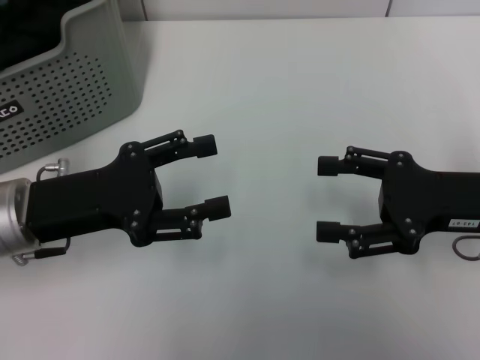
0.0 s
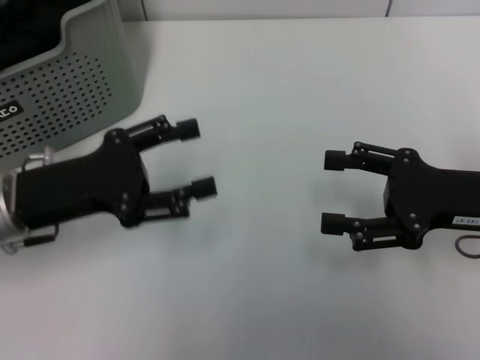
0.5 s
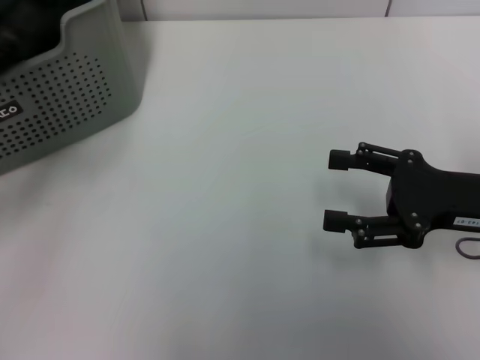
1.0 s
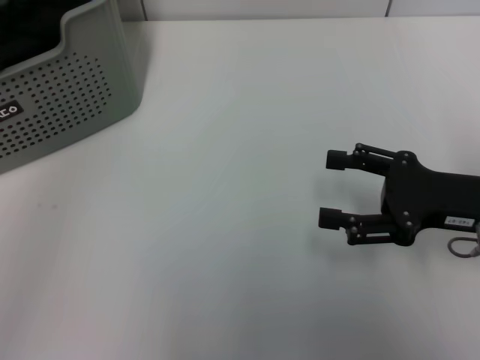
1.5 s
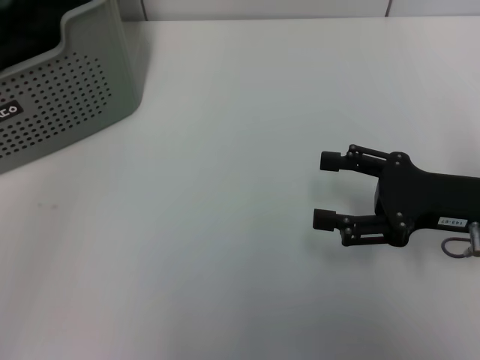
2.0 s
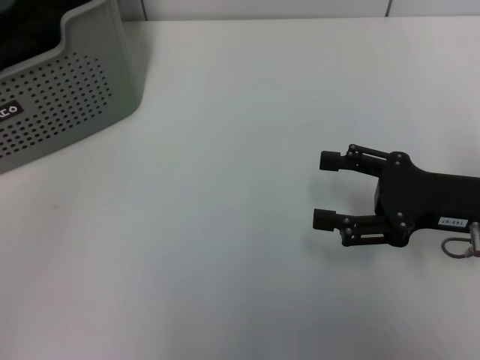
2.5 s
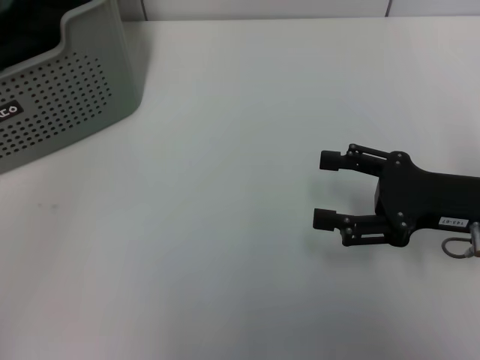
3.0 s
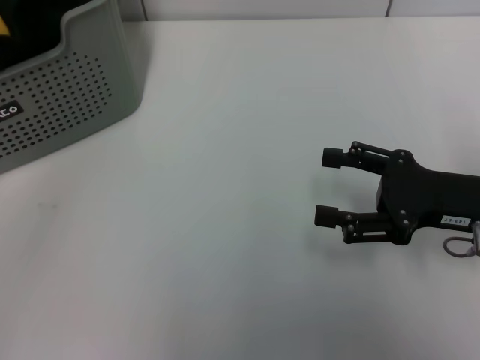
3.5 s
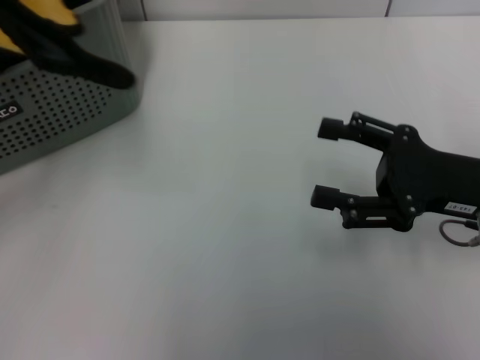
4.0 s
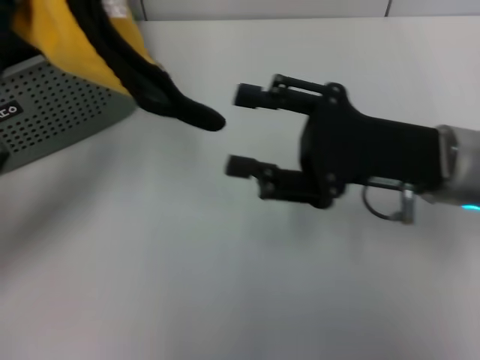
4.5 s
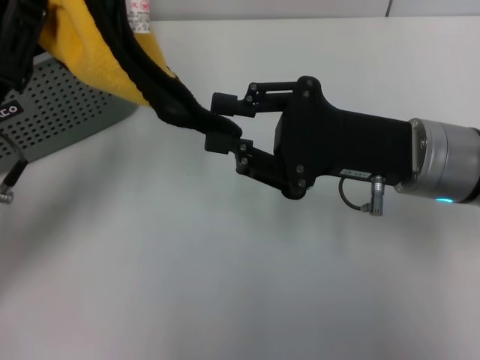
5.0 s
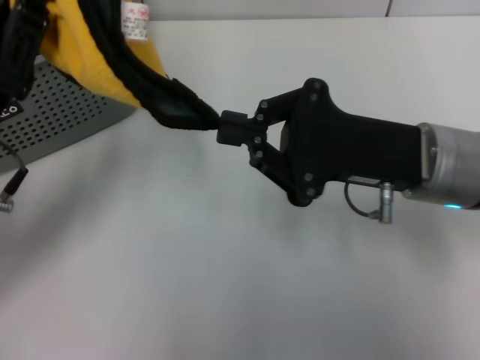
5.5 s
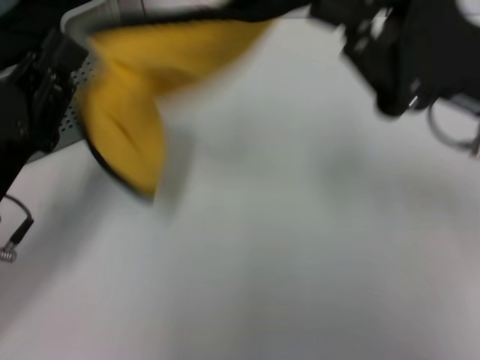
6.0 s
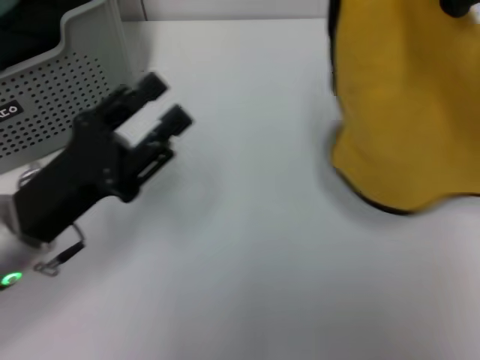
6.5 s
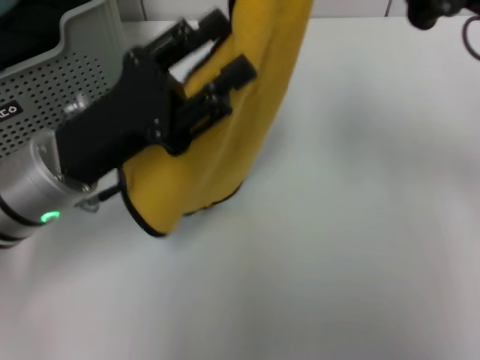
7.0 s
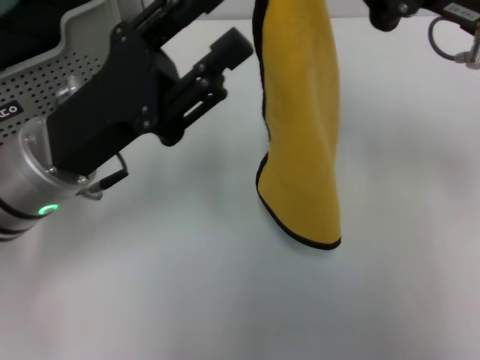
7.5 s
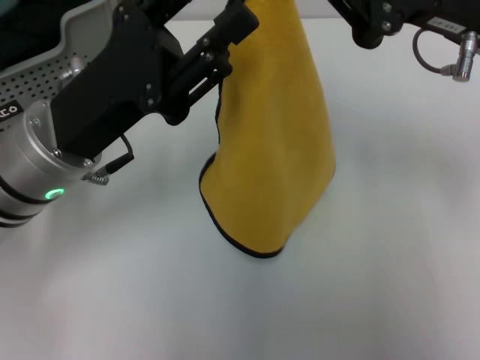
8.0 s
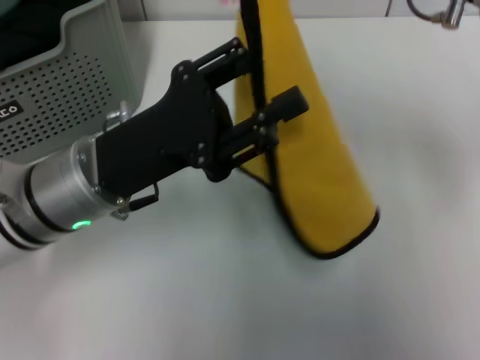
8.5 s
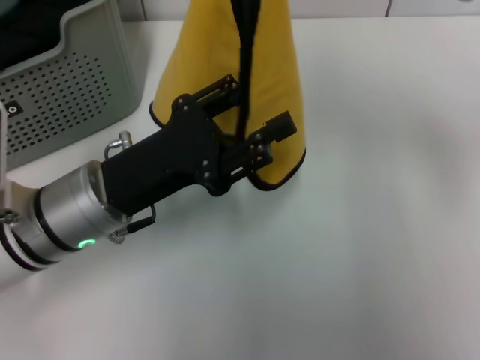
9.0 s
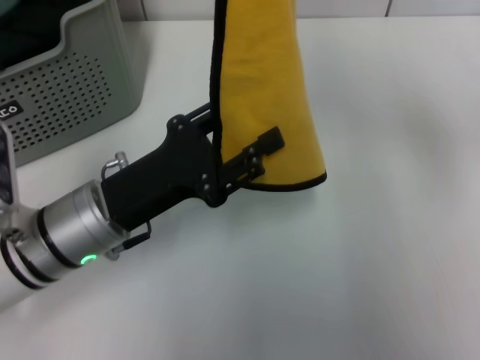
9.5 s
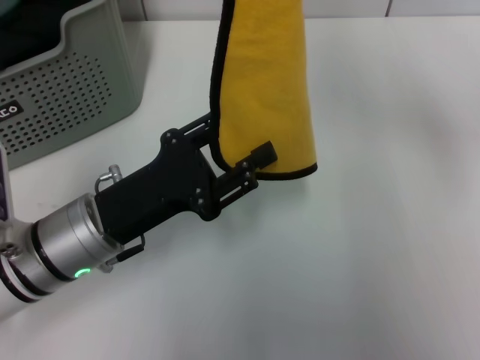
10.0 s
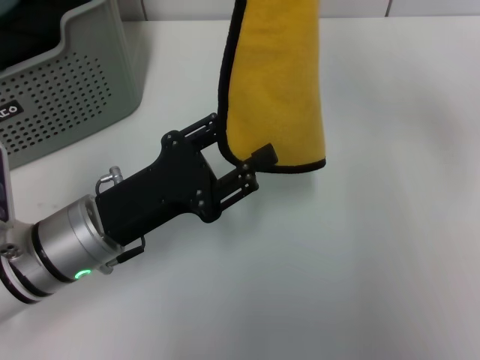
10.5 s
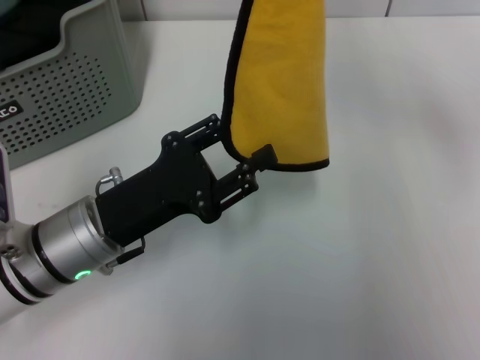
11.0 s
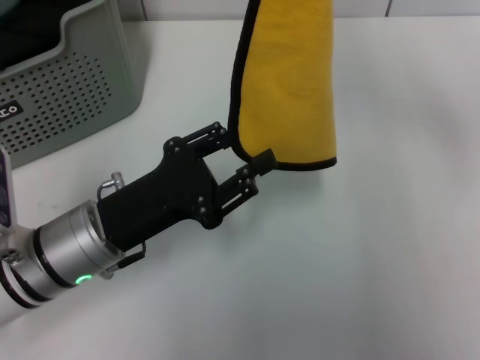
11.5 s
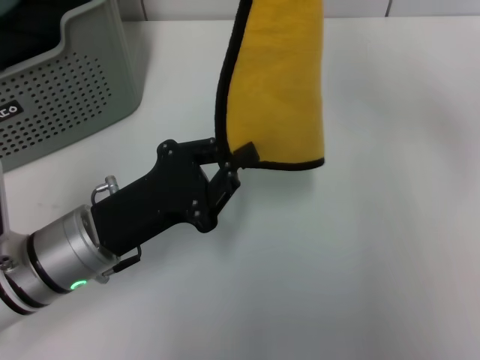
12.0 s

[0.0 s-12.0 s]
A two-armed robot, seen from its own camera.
Task of the whole recording: pick up the towel from the storage box and lay it flat on the table.
Step, 0.0 to 3.0 s: Pick up a towel with the left gripper.
Step, 3.5 to 5.0 s: Spread the towel flat with the left gripper.
0.0 to 2.0 s: The left gripper is displaced to the left by roughly 15 cm.
2.0 to 4.0 s: The left gripper shifts roughly 10 cm to the right, and closes up.
4.0 to 6.0 s: The right gripper is displaced upward by about 10 cm, and closes. Meanwhile the left gripper shifts some 10 cm downward and to the right.
6.0 to 8.0 s: The right gripper moves approximately 5 cm. Meanwhile the left gripper heads to the right and forward, covering about 10 cm, and opens up.
8.0 to 10.0 s: The left gripper heads downward, covering roughly 5 cm. The right gripper goes about 5 cm upward.
10.0 to 12.0 s: The left gripper closes its fingers.

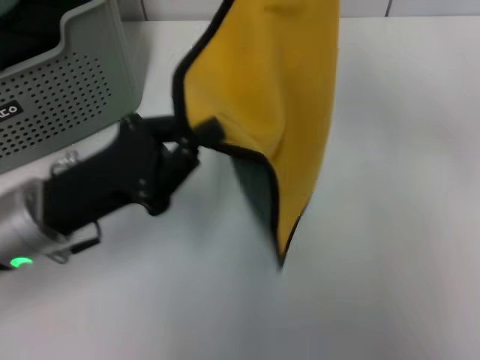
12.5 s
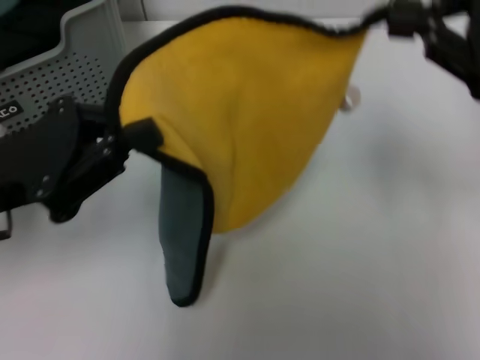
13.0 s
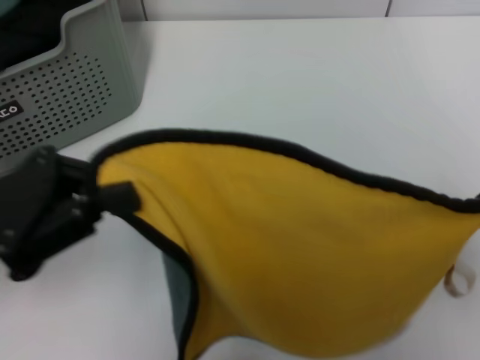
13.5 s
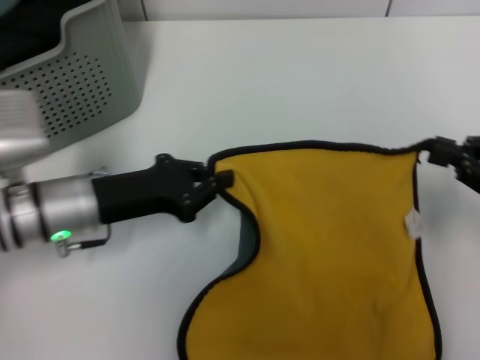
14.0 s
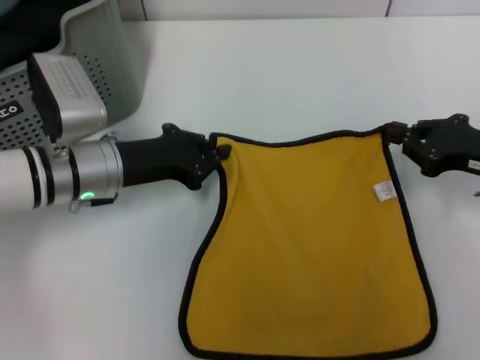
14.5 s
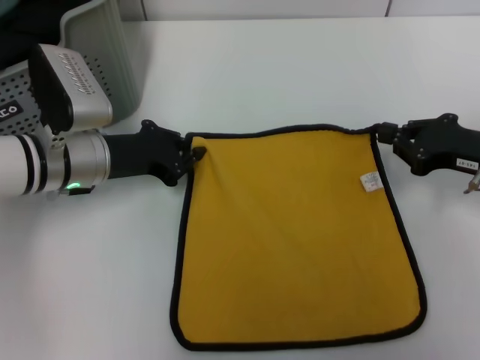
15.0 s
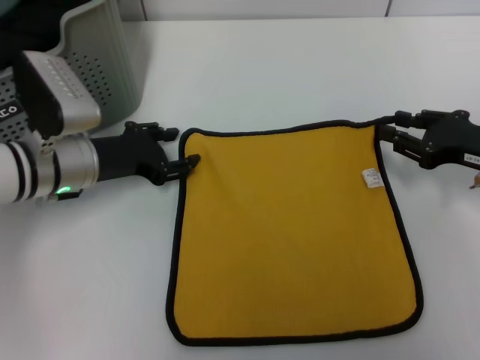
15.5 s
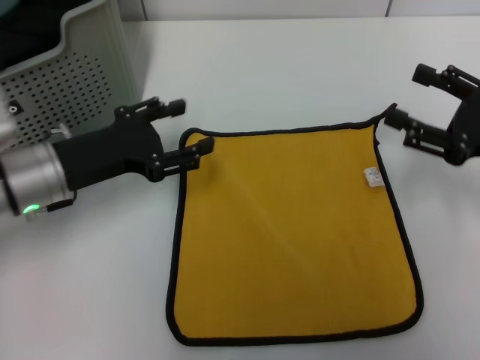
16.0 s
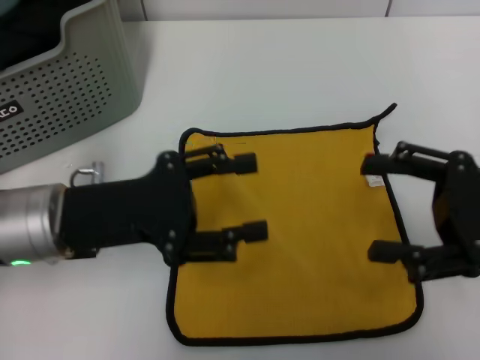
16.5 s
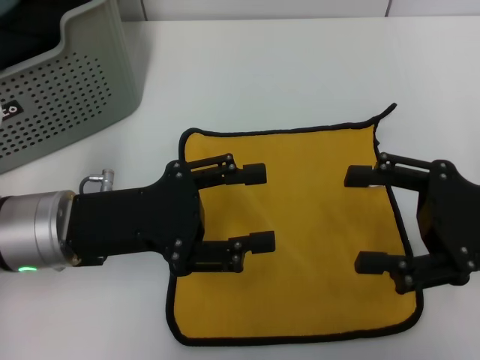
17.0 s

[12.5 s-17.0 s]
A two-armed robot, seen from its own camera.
Task of the whole recording: pick up the towel from the storage box and lay it flat on the table.
Step, 12.5 to 15.5 s: Spread the towel flat with the right gripper.
12.5 to 14.5 s: The right gripper shifts approximately 20 cm downward; the left gripper is displaced forward by some 10 cm.
14.5 to 17.0 s: The two grippers go about 5 cm backward. The right gripper opens up. The left gripper opens its fingers.

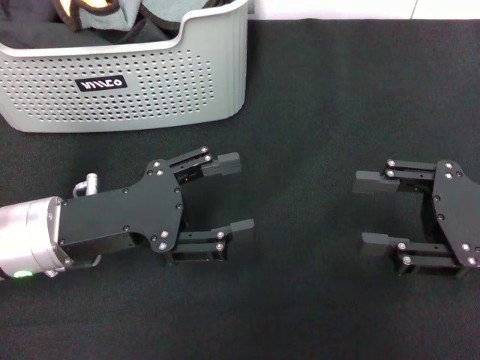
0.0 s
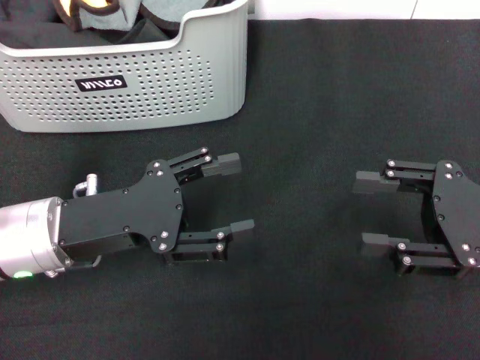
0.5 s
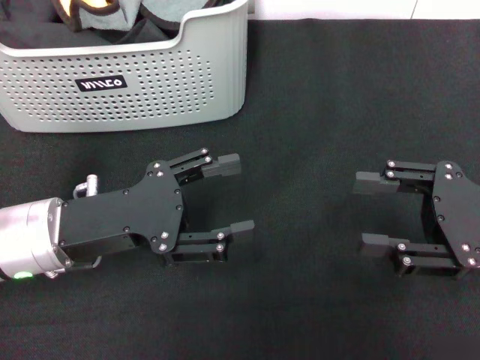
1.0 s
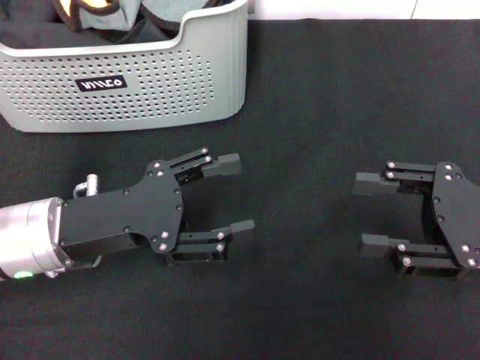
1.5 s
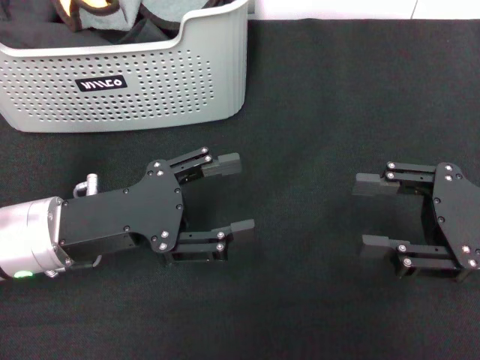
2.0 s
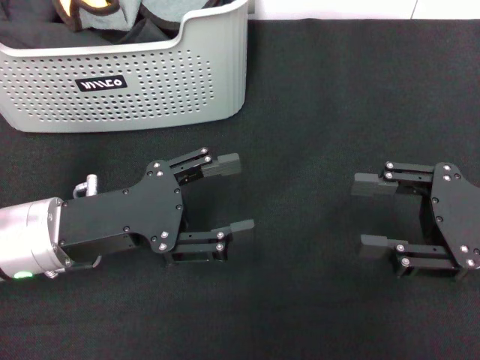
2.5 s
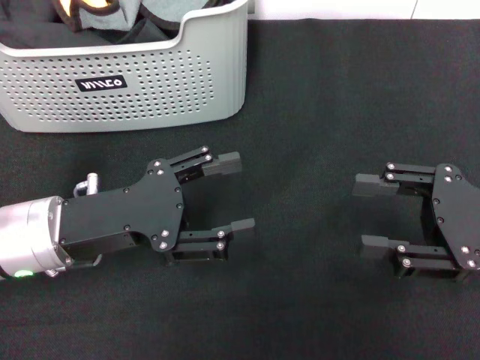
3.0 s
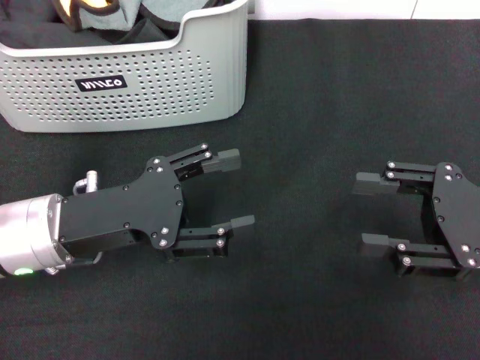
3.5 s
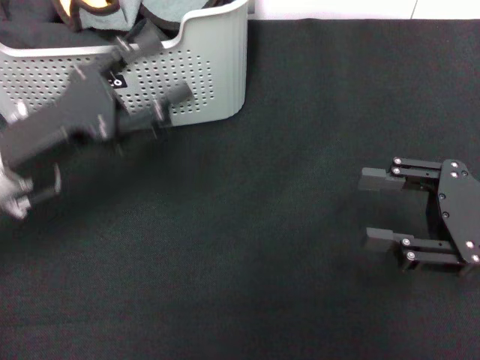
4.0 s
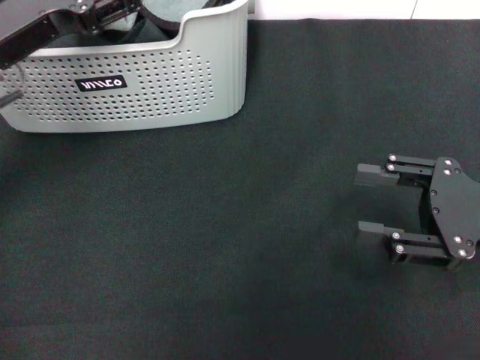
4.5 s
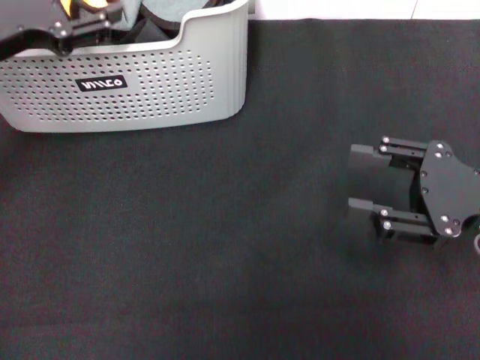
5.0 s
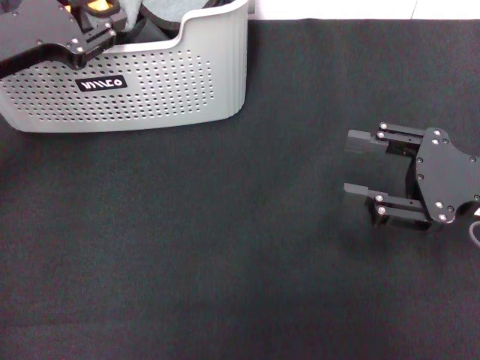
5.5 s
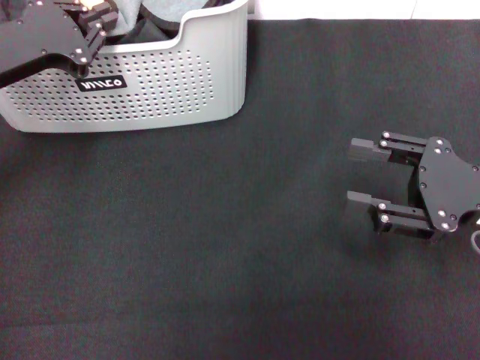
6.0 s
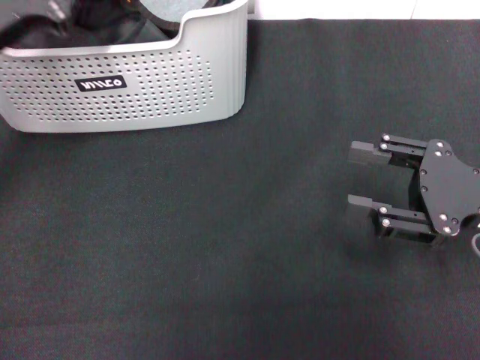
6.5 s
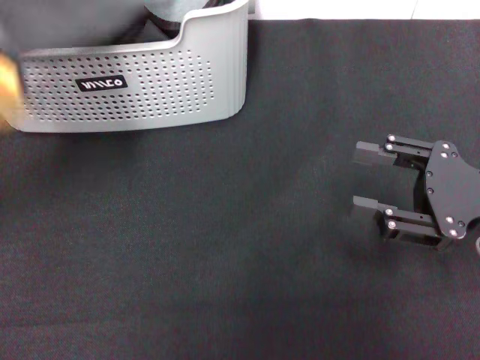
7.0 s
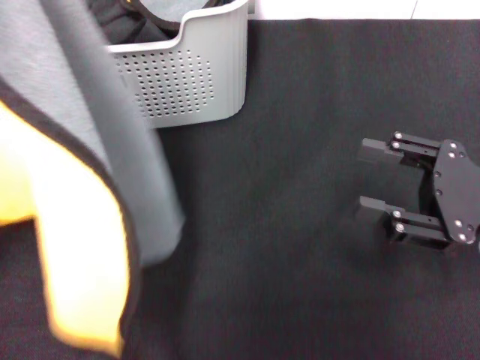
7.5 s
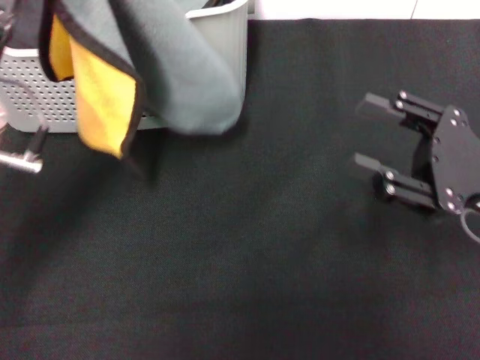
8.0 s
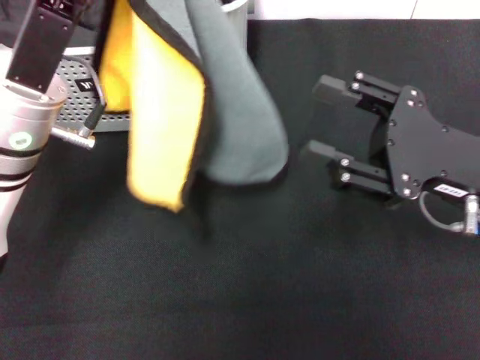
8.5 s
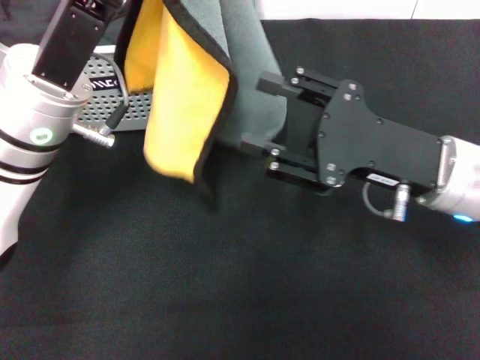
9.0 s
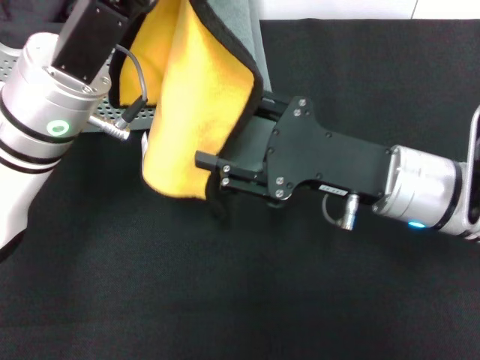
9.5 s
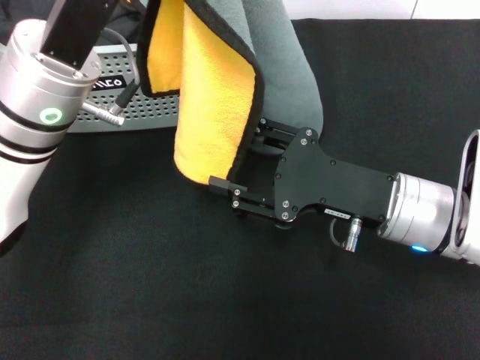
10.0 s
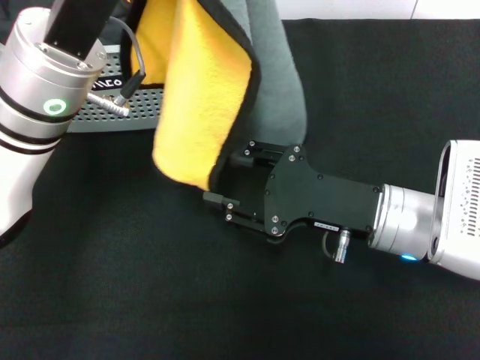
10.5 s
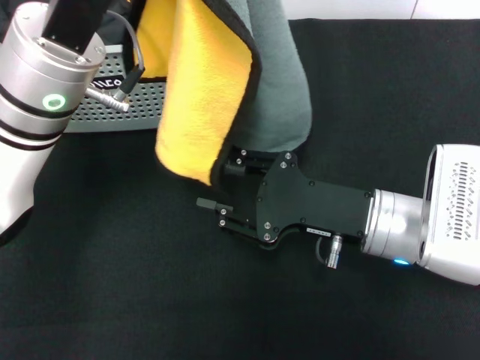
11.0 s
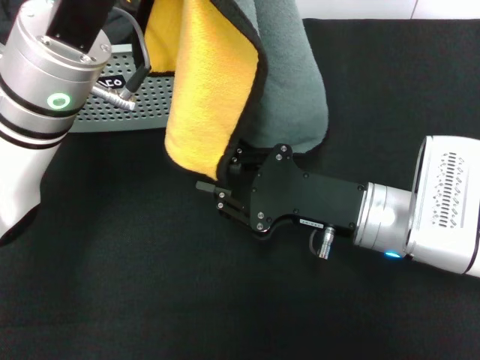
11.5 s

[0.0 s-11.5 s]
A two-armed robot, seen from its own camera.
Task of the whole recording: pick up the towel from the storage box and lay it flat on the black tablecloth.
Step, 0.0 to 6.0 s: Pick up a towel with the left gripper.
0.0 to 2.0 s: Both grippers stay put.
4.0 to 6.0 s: The left gripper shifts approximately 5 cm forward, and closes.
6.0 to 7.5 s: The left gripper shifts roughly 10 cm backward.
7.5 to 9.5 s: The left gripper goes about 10 cm to the right. The right gripper travels to the left by roughly 10 cm.
9.5 to 11.5 s: The right gripper closes its fingers.
